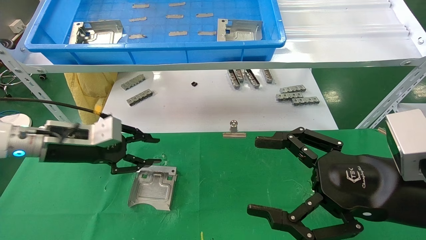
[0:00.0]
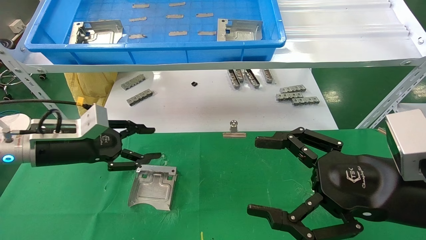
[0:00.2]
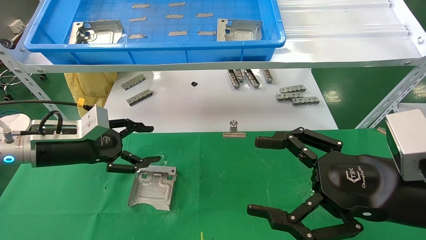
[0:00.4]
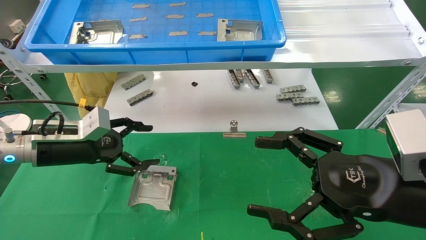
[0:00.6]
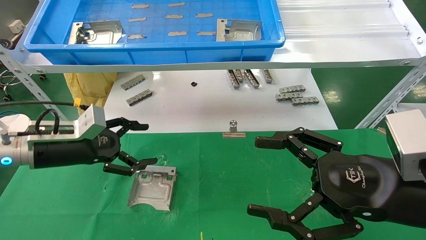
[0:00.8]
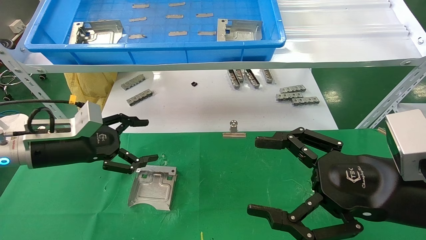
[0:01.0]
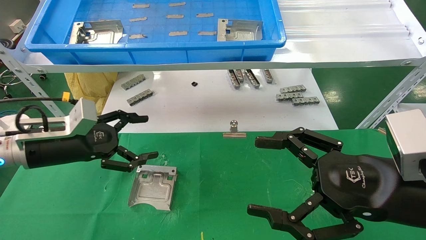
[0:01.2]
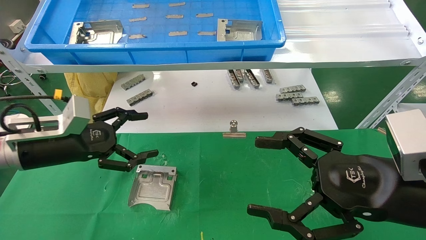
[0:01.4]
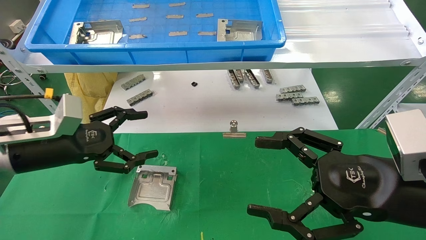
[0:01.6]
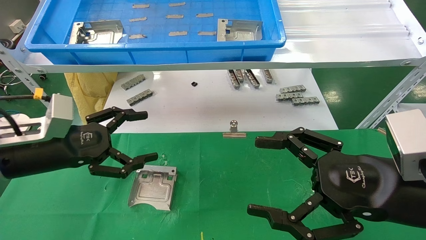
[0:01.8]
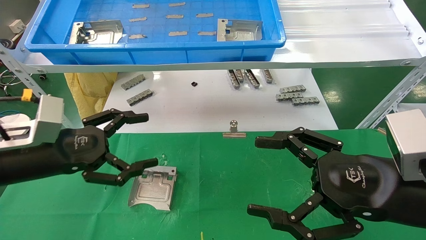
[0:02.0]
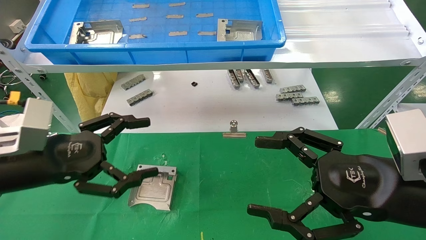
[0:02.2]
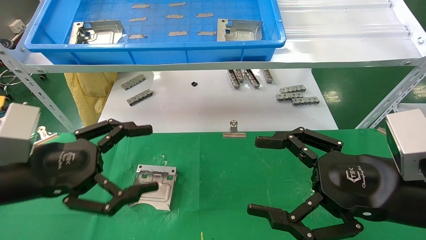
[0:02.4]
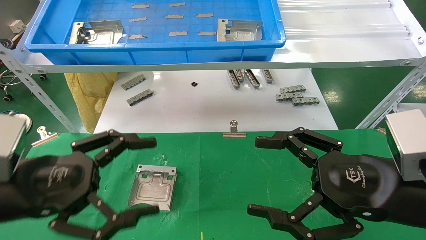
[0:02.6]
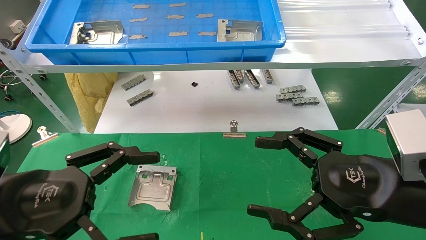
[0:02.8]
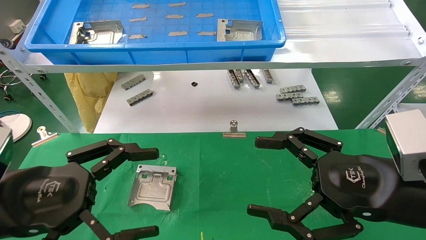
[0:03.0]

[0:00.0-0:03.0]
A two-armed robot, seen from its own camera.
Task of the whole recording: use the mechanical arm to pick up the parts and place them on the table.
0:00.0 to 0:01.6: The left gripper heads backward, covering approximately 5 cm, and opens its fingers.
0:01.6 to 0:03.0: The left gripper moves backward, about 15 cm.

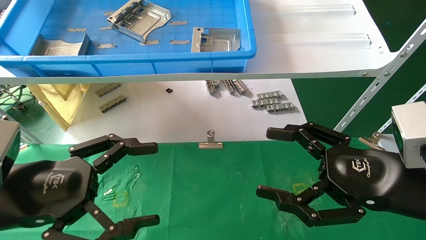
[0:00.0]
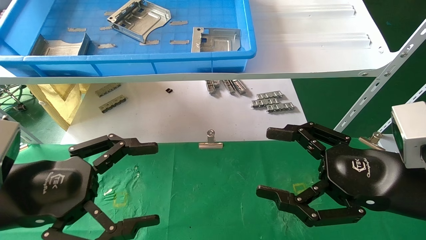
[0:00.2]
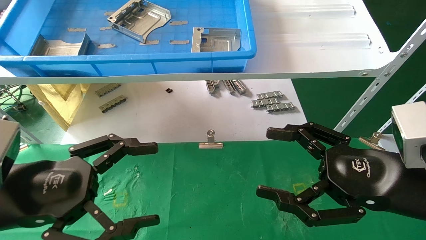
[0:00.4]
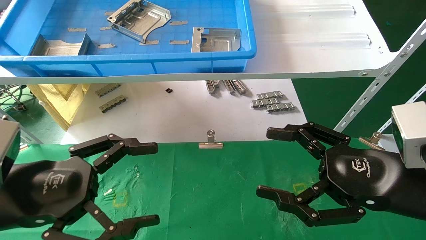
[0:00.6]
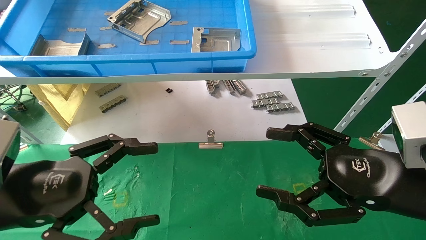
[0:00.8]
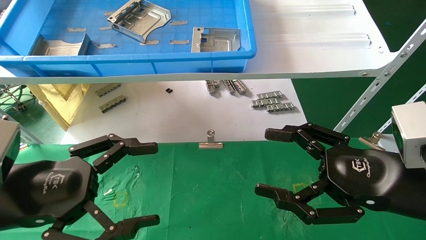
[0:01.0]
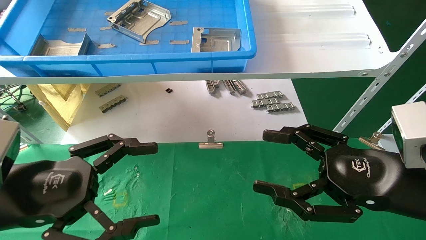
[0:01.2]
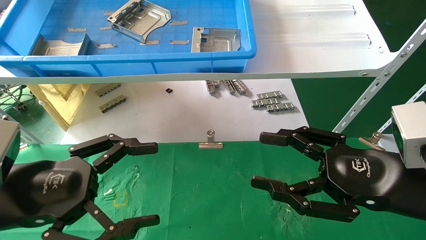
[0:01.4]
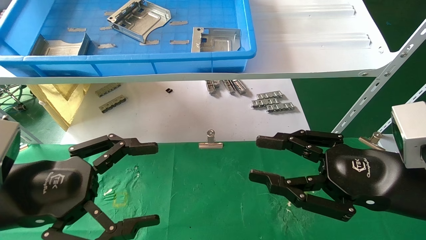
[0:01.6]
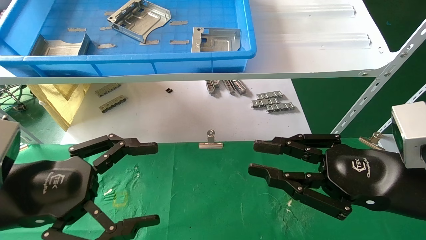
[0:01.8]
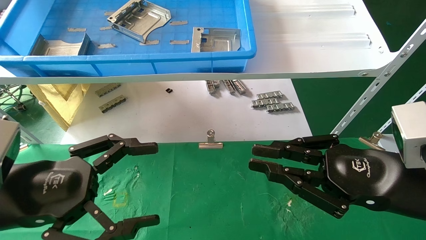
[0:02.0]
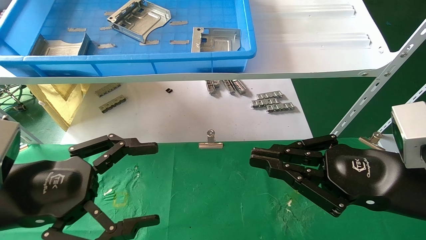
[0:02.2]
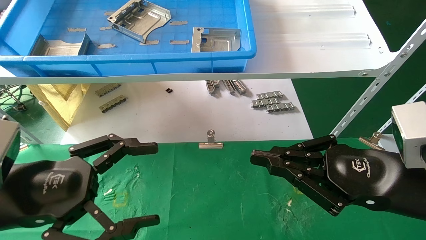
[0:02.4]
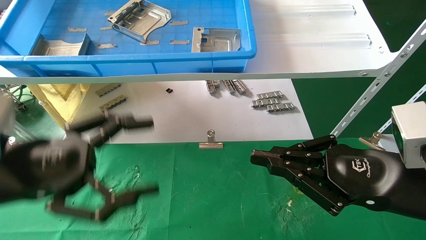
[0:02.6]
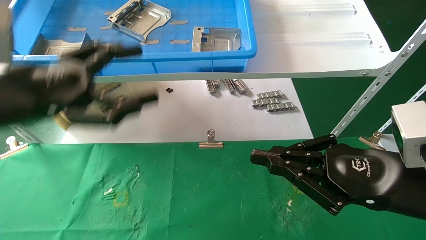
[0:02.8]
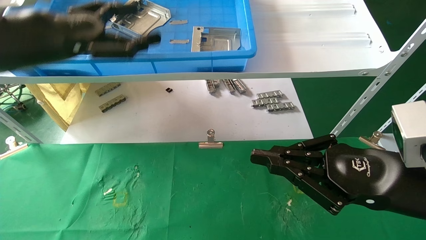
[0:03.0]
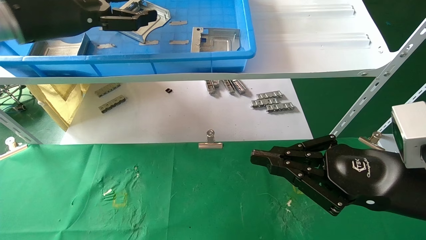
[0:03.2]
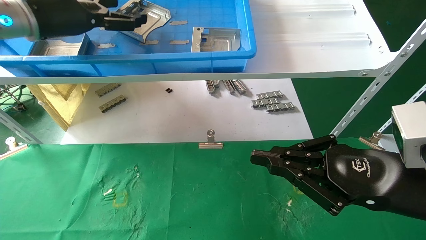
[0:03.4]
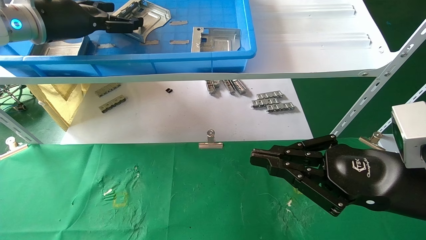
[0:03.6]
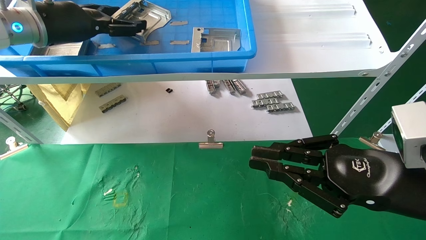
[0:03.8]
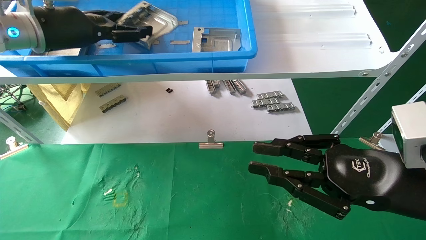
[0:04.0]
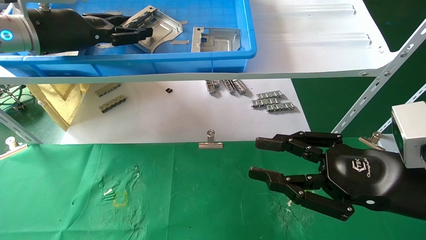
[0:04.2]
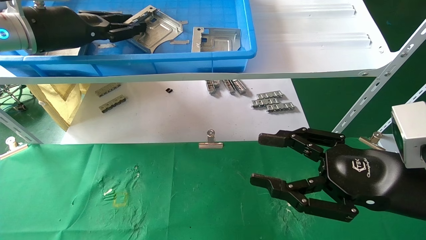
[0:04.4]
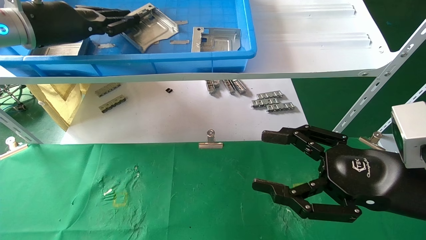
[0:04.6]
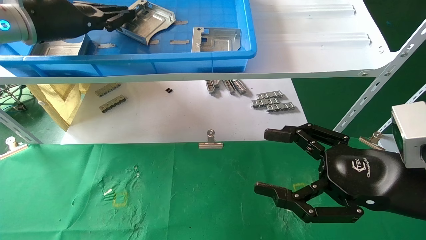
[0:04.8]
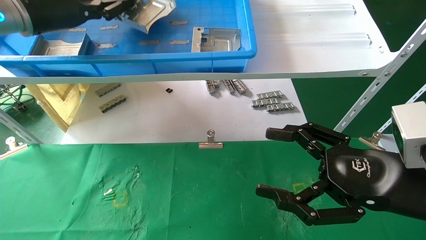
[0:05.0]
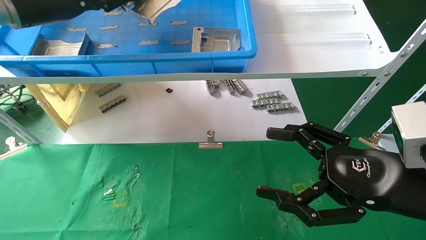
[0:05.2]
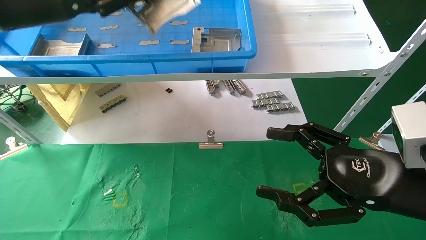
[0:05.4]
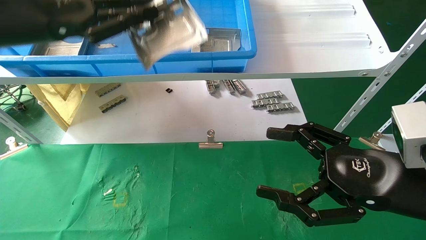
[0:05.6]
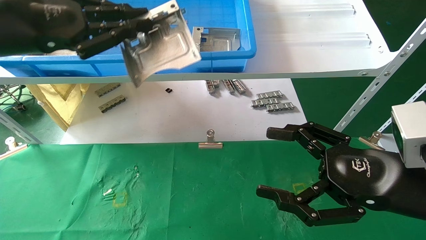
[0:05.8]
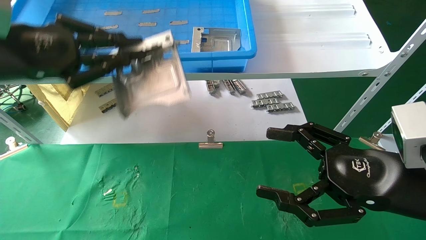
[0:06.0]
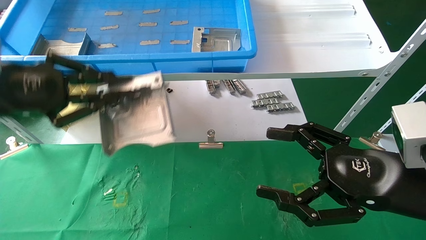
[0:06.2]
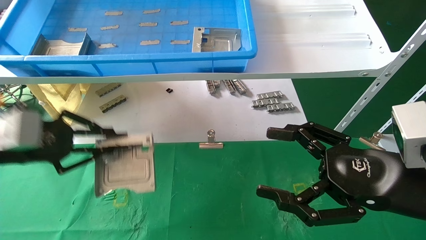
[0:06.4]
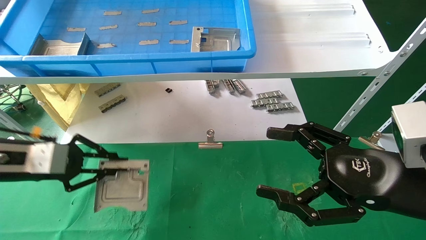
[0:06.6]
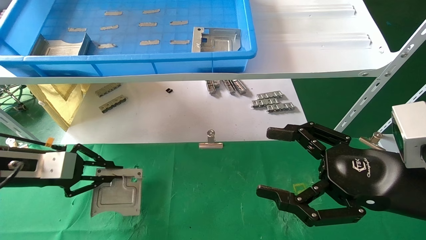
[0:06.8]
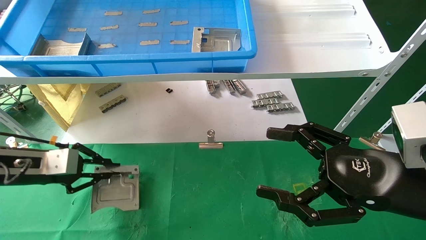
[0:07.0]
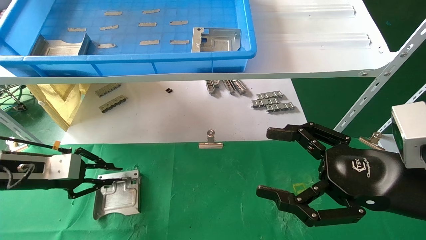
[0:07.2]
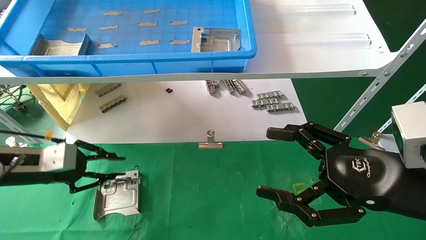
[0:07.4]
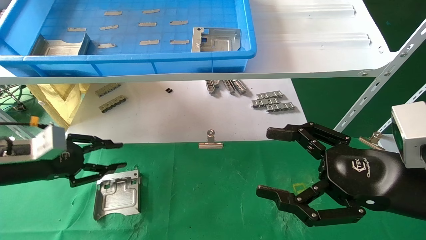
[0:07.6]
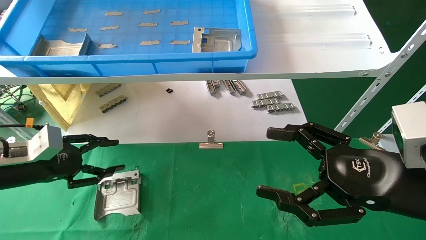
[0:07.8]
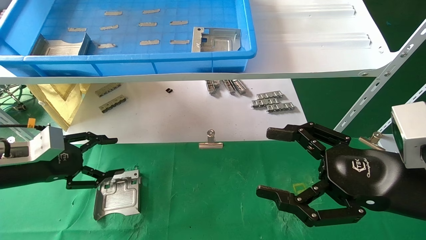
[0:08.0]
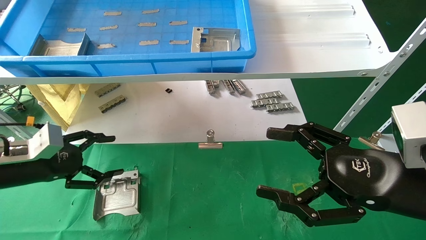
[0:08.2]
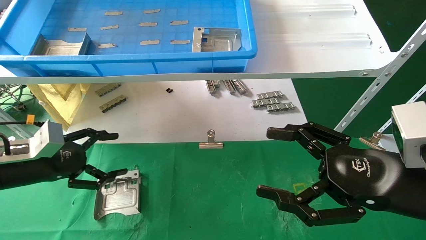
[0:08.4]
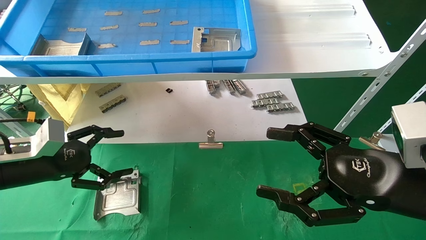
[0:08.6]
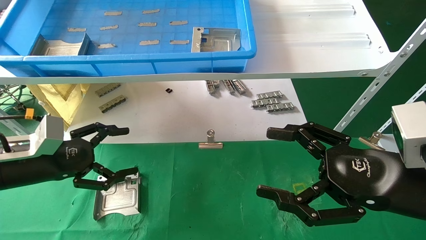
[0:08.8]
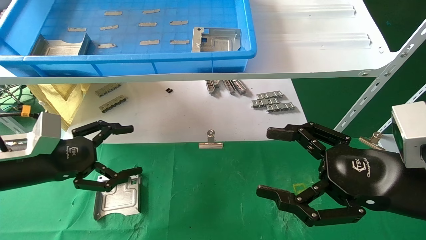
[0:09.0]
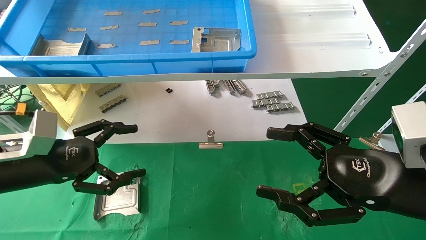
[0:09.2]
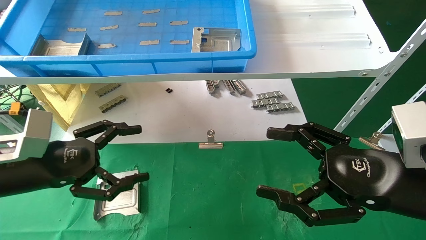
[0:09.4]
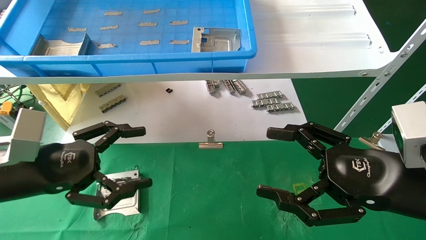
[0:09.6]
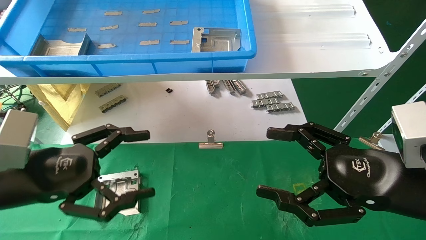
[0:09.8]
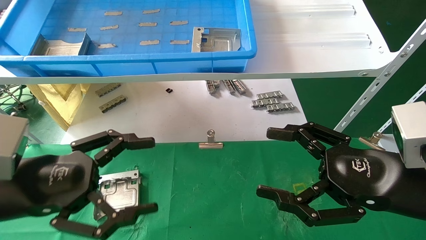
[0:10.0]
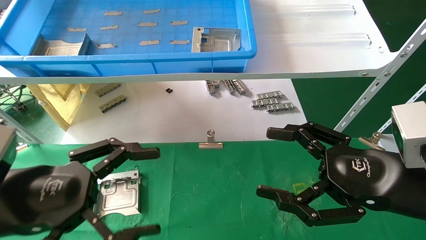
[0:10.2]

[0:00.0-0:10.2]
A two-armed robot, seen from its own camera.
Task of the whole recording: use the mechanical arm to pick up the parts and place them on the table.
Step, 0:02.8 to 0:04.6: Pick up the hard drive bracket from the feeding area.
Step, 0:04.8 to 0:07.6: Place the hard drive bracket into the box.
0:00.0 to 0:01.4: Both grippers stay put.
0:01.4 to 0:03.0: The left gripper shifts roughly 20 cm upward and forward. Meanwhile the right gripper closes up.
0:03.0 to 0:04.4: The left gripper goes about 10 cm forward, and closes its fingers; the right gripper opens.
0:04.4 to 0:05.8: The left gripper shifts about 10 cm backward, and closes up. Meanwhile the right gripper opens.
0:05.8 to 0:07.2: The left gripper goes roughly 20 cm downward.
0:07.2 to 0:08.8: The left gripper opens.
0:08.8 to 0:10.2: The left gripper goes roughly 15 cm backward and to the right.

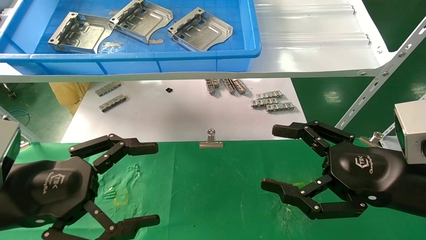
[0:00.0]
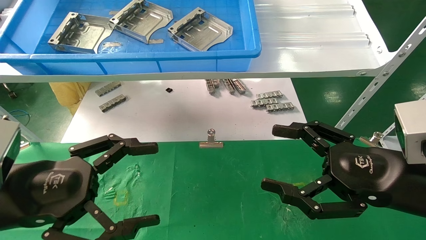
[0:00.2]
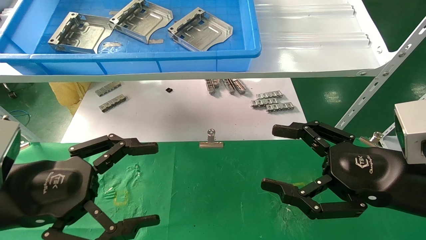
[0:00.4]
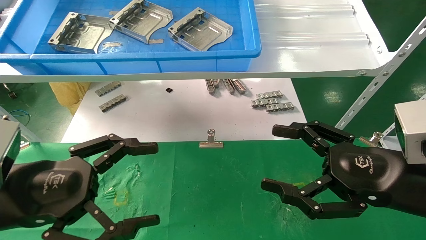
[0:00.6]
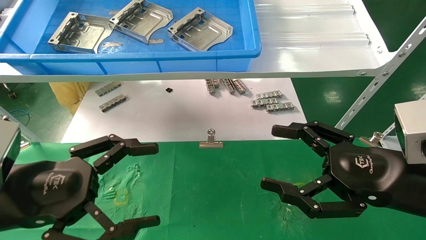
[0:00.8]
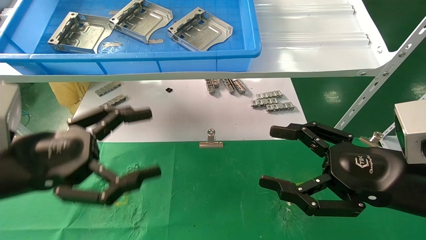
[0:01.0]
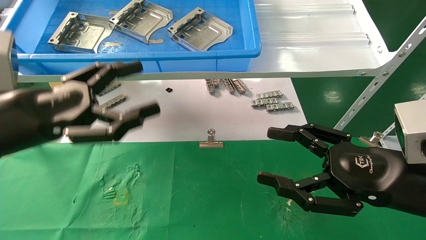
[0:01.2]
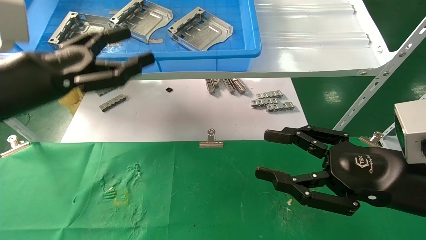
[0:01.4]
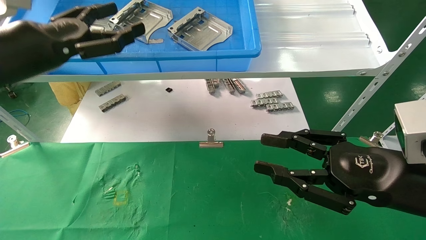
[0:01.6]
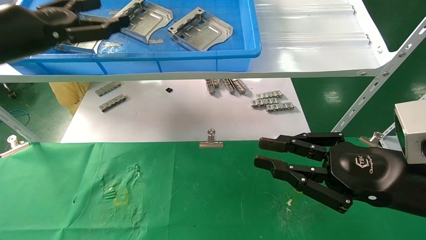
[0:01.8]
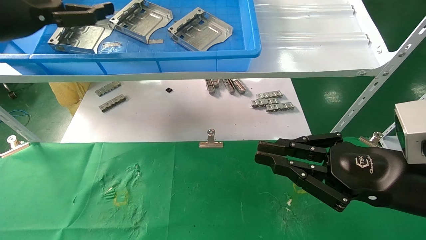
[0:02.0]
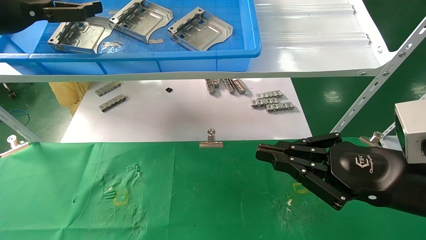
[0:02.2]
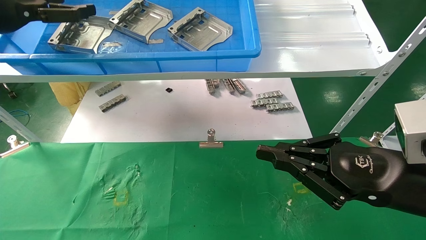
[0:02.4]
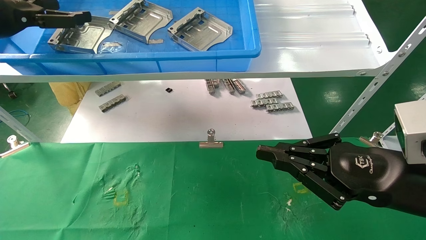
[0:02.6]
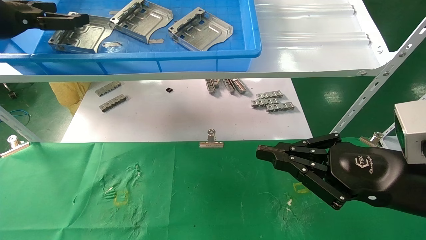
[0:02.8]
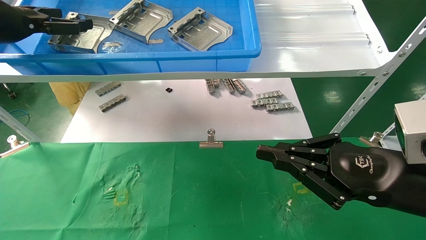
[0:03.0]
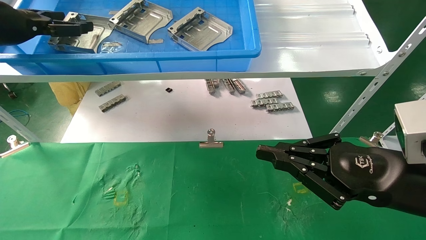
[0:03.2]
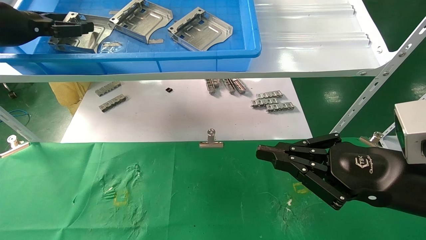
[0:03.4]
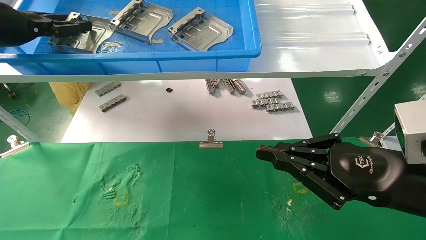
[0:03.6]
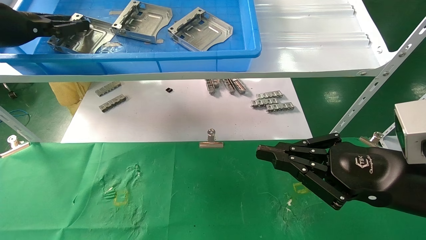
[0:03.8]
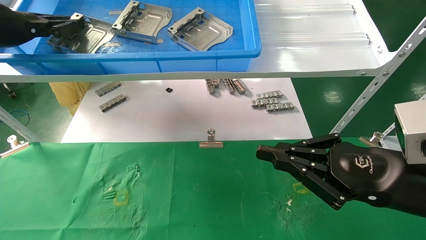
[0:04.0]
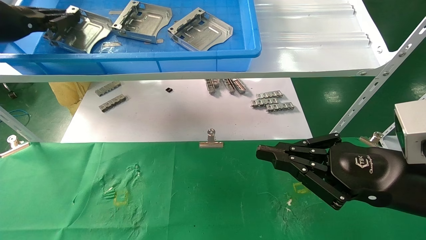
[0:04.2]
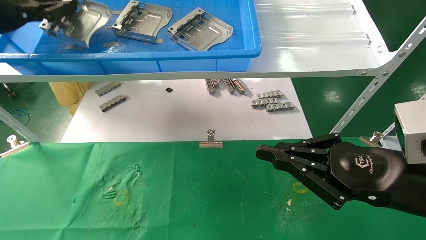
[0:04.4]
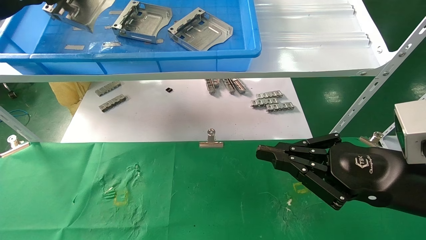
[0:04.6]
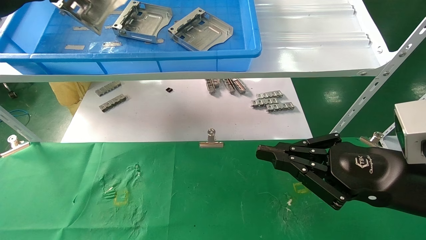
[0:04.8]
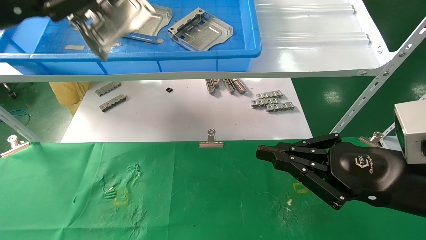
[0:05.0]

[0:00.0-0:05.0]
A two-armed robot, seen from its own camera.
Task of the whole recording: use the mechanical arm to pick up the parts and place them on the table.
Step, 0:01.2 to 0:04.0: Pick up the hard drive bracket from the feeding area.
0:00.0 to 0:01.6: The left gripper is displaced upward and forward by roughly 20 cm. The right gripper closes.
0:01.6 to 0:03.4: The left gripper travels to the left, forward and upward by about 10 cm; the right gripper closes its fingers.
0:03.4 to 0:05.0: The left gripper goes about 10 cm backward and to the right, and closes.
